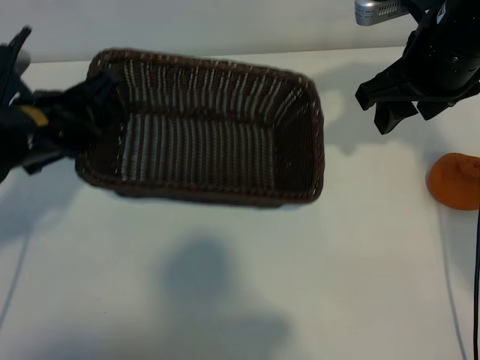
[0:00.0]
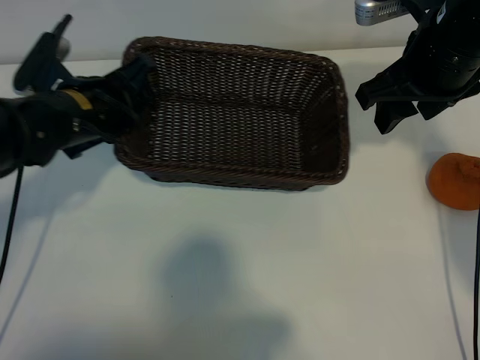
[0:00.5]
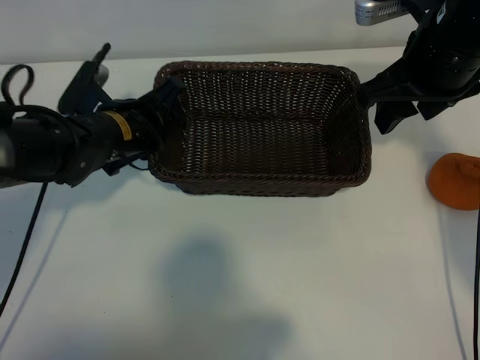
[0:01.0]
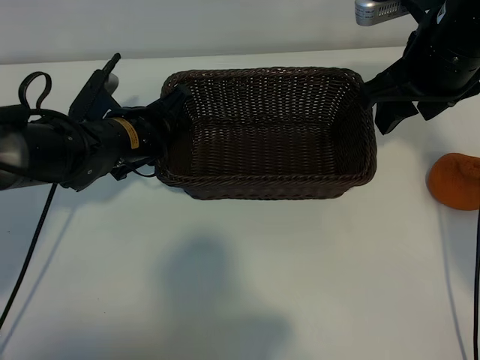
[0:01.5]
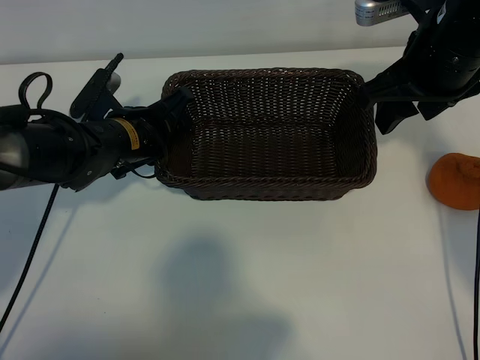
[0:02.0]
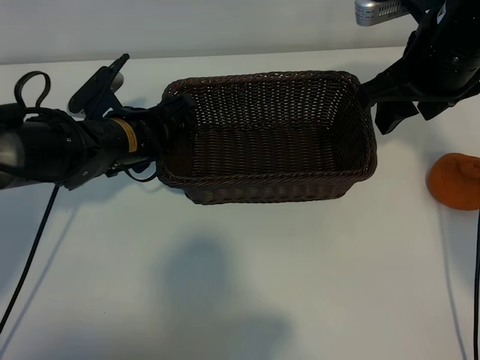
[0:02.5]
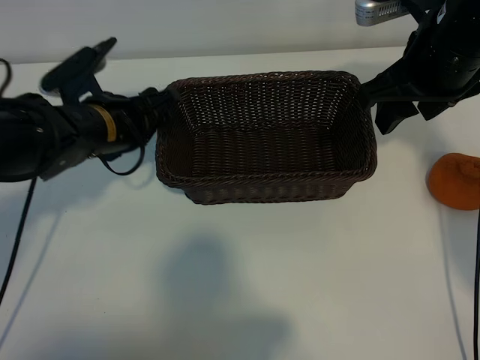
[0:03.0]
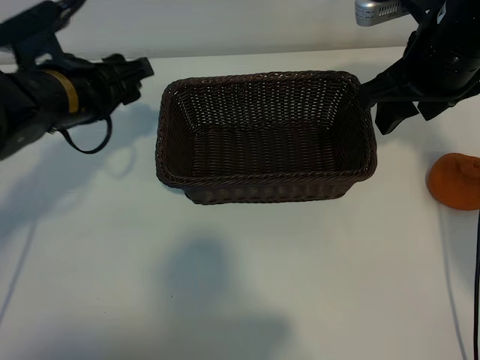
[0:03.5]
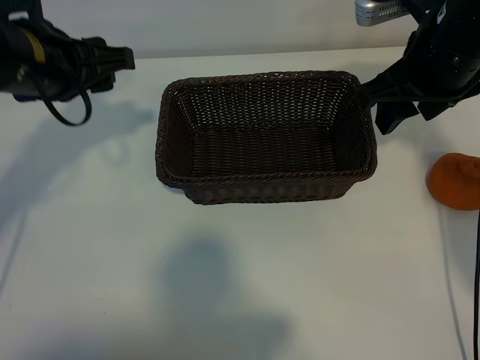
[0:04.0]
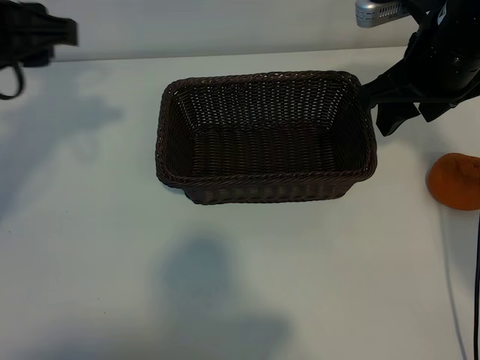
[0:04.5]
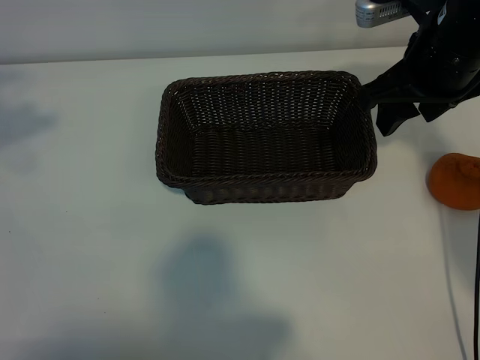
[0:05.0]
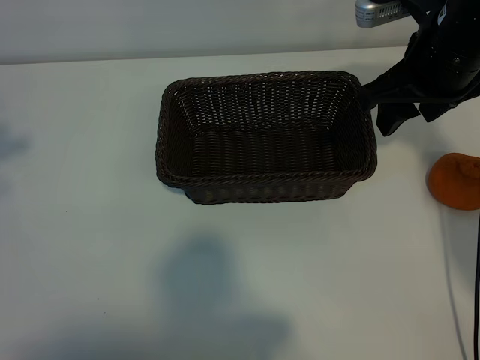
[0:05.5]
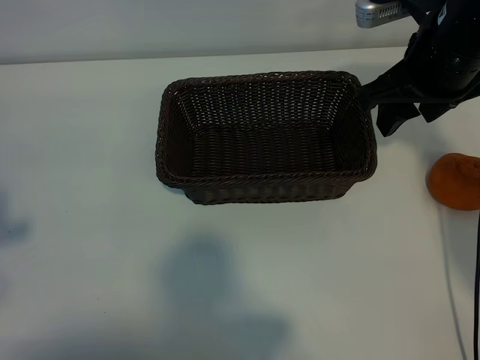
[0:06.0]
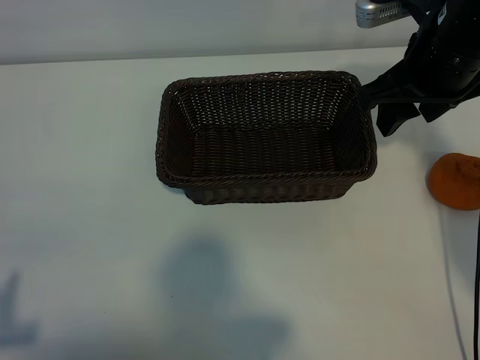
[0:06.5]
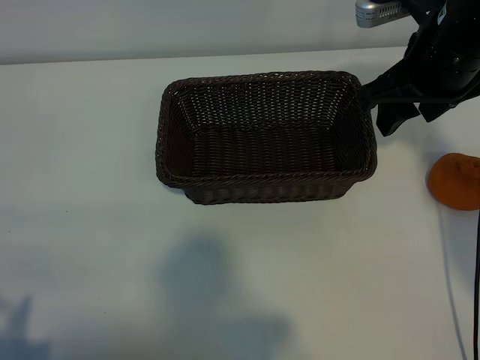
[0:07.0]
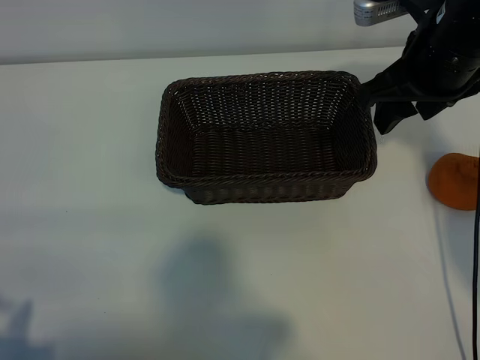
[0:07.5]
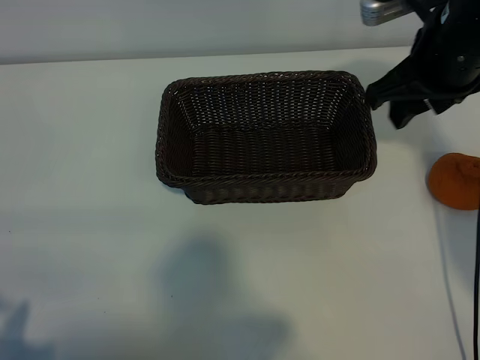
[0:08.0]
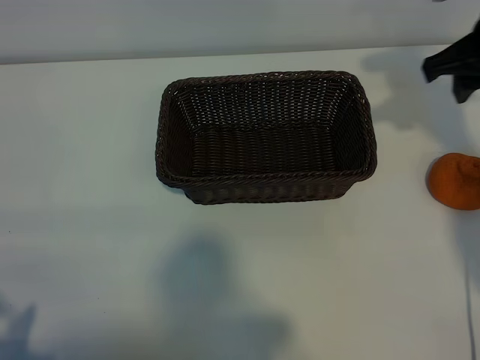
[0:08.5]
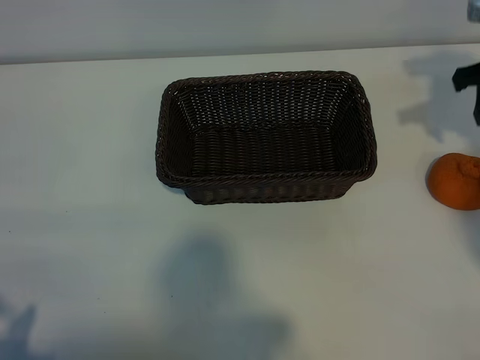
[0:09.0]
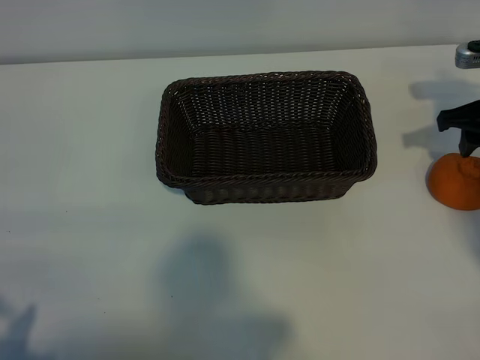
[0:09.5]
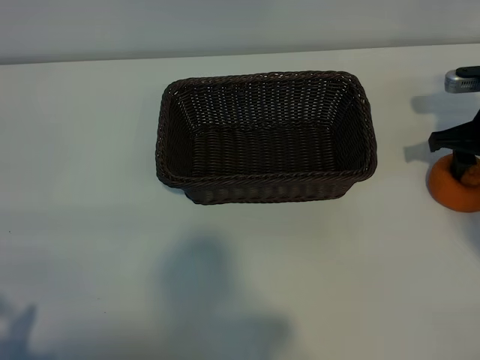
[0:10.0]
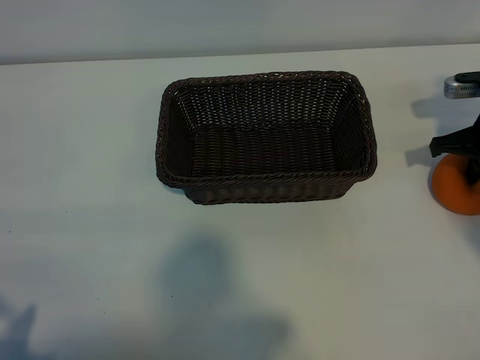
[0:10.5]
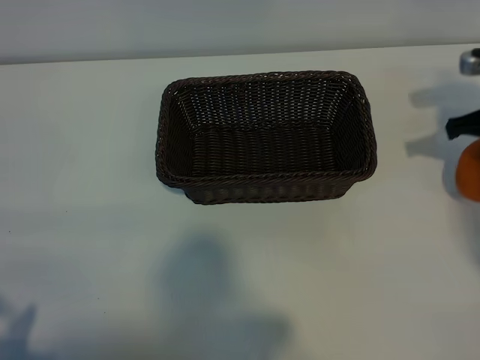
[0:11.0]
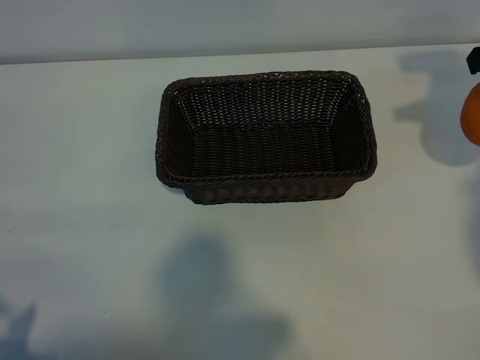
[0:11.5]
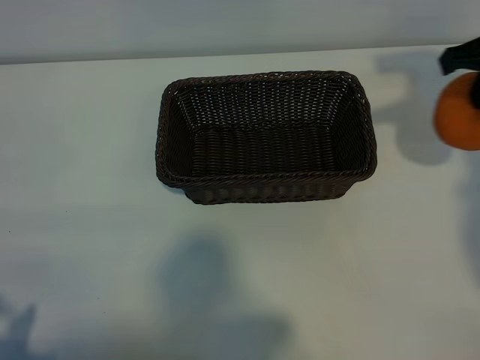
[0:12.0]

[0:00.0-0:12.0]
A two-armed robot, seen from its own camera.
Task of the whole recording: pick up the orange and put it into the basket.
Step, 0:00.0 to 0:02.0: Place the basket in the center of view with left gripper.
Step, 0:02.5 to 0:10.0: Grasp the orange with right gripper.
